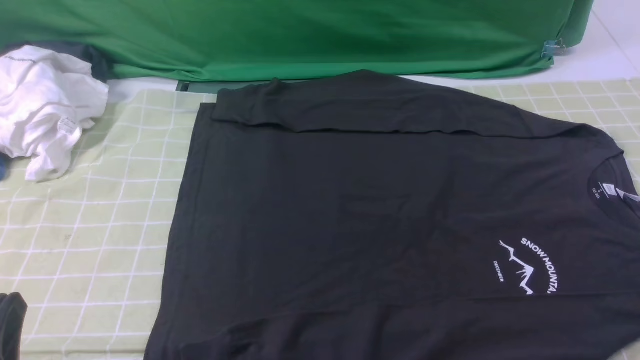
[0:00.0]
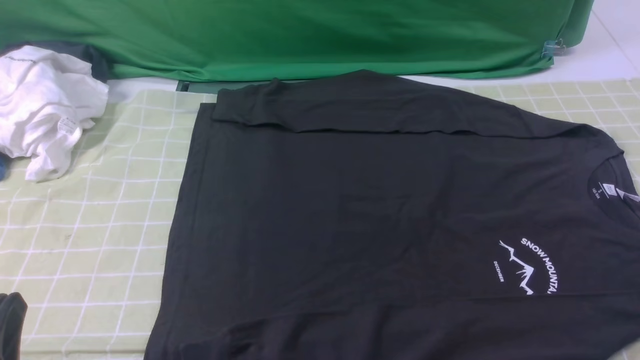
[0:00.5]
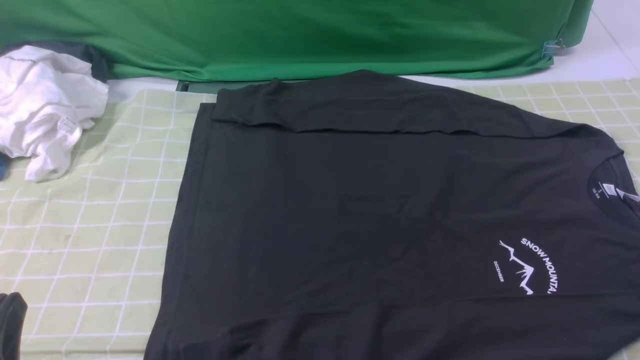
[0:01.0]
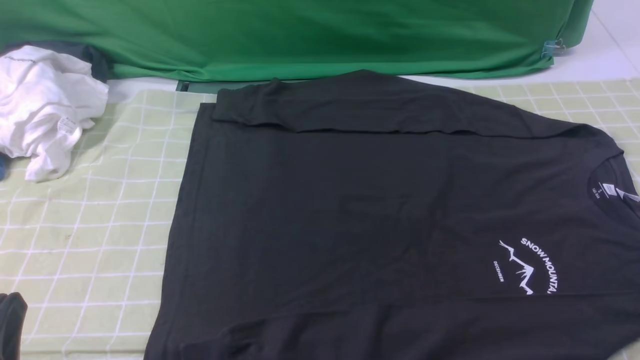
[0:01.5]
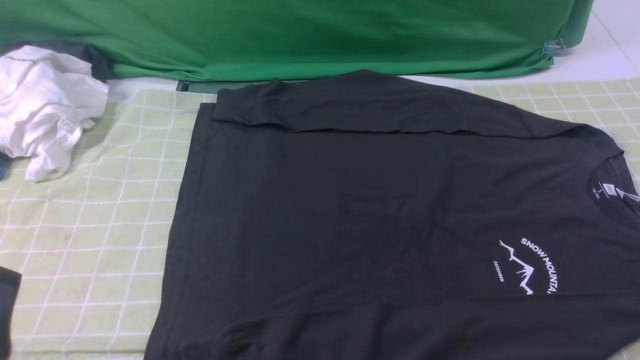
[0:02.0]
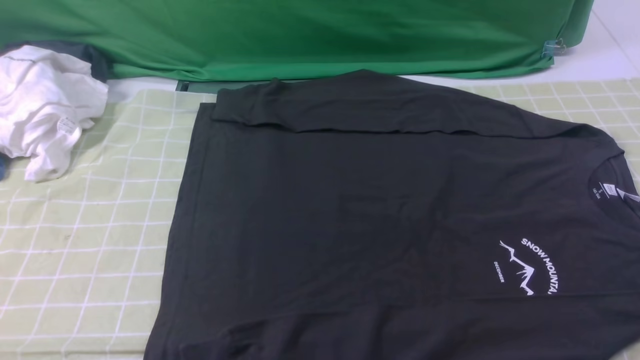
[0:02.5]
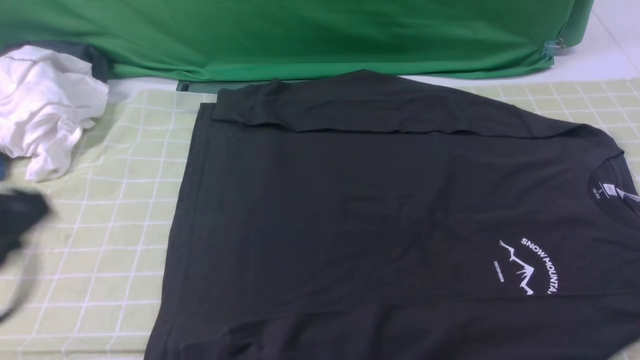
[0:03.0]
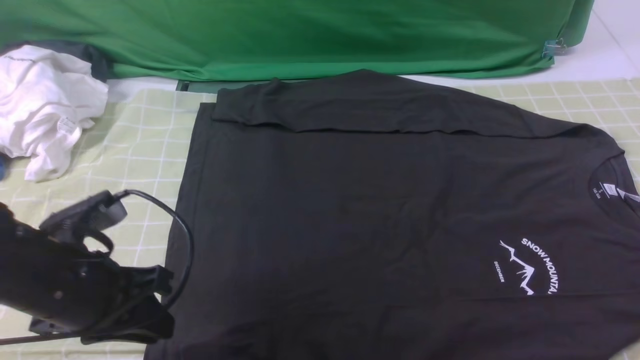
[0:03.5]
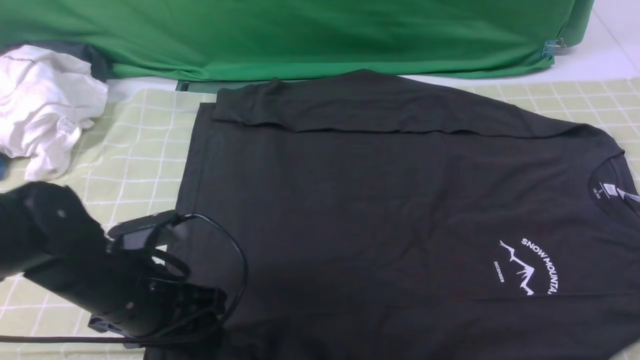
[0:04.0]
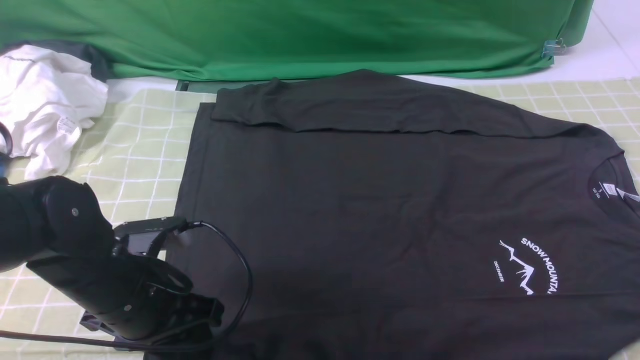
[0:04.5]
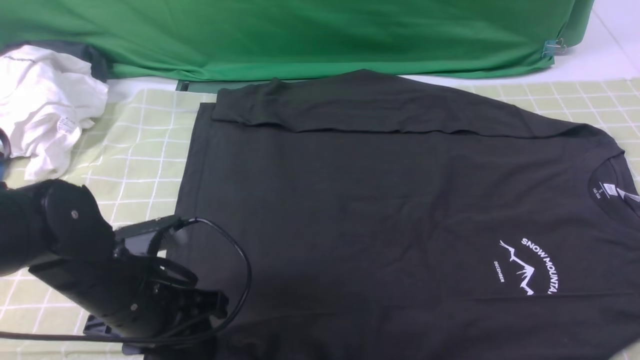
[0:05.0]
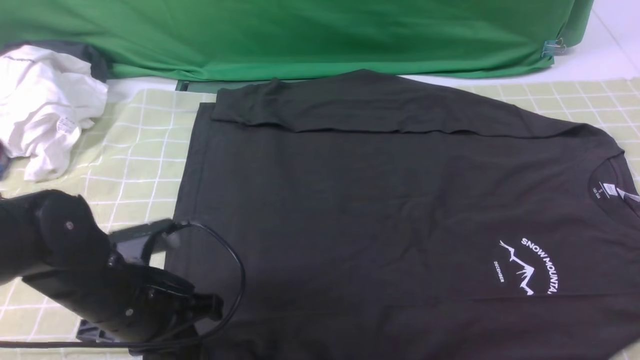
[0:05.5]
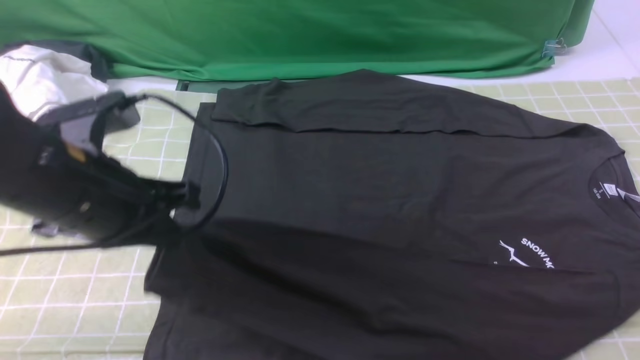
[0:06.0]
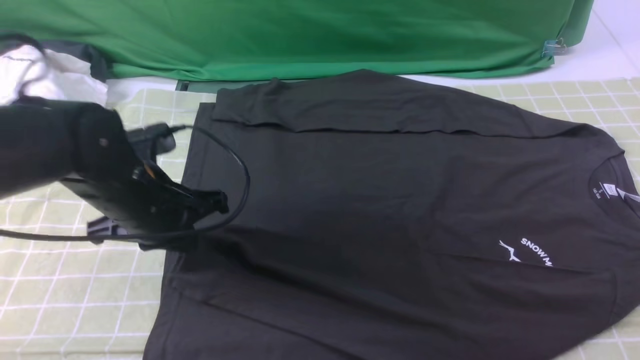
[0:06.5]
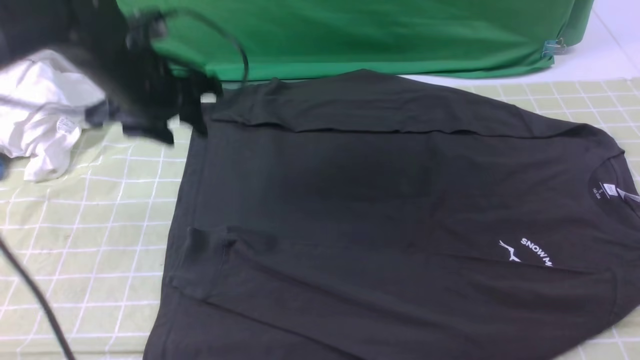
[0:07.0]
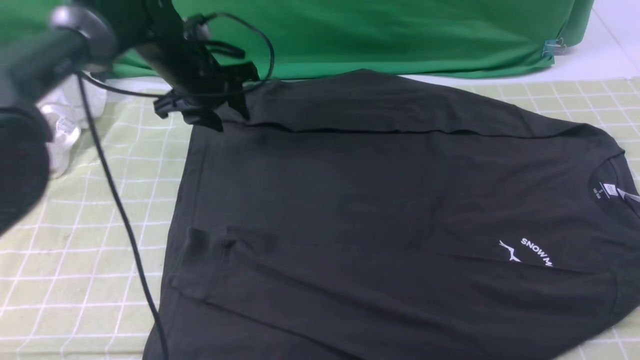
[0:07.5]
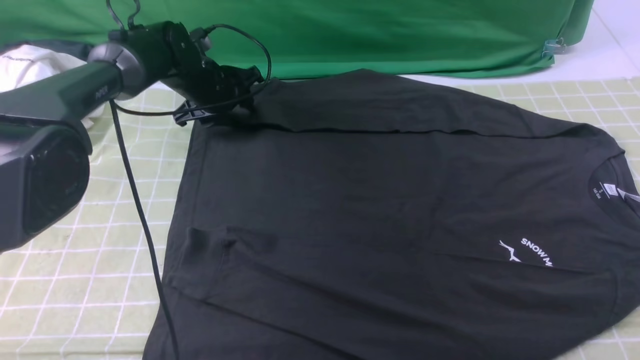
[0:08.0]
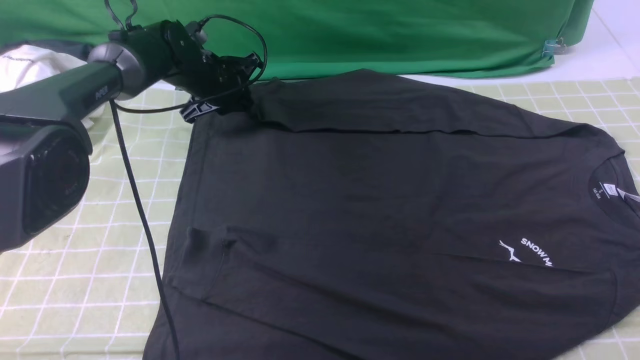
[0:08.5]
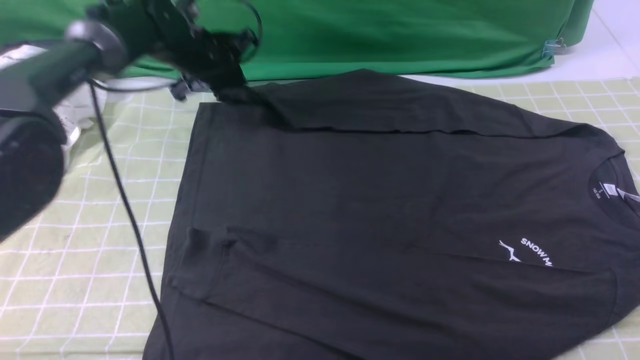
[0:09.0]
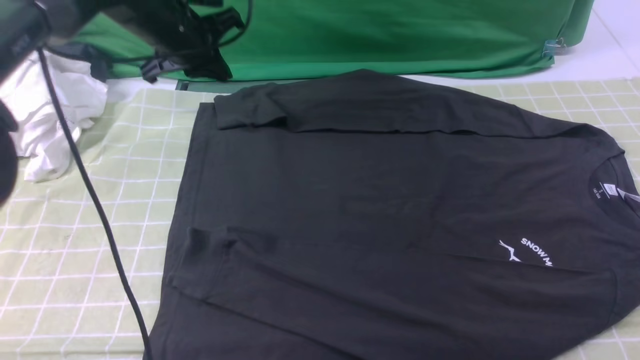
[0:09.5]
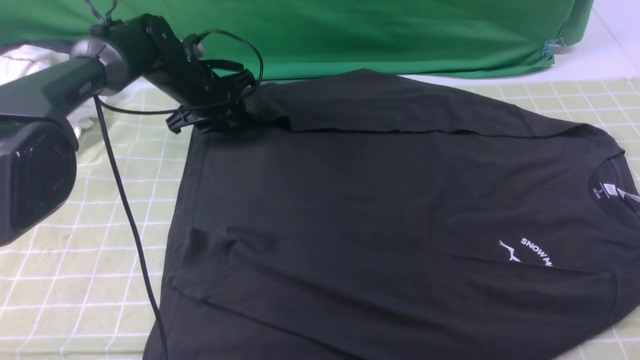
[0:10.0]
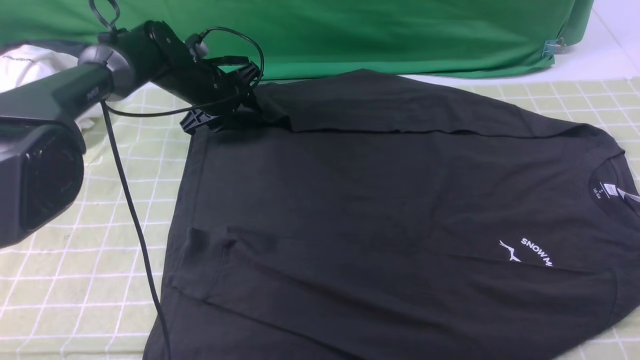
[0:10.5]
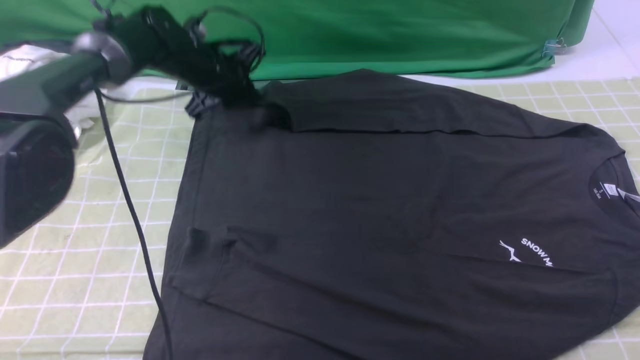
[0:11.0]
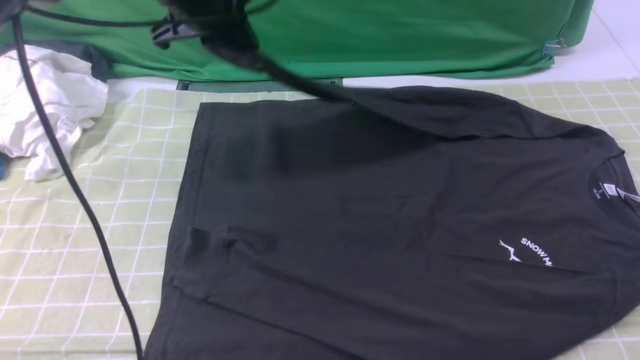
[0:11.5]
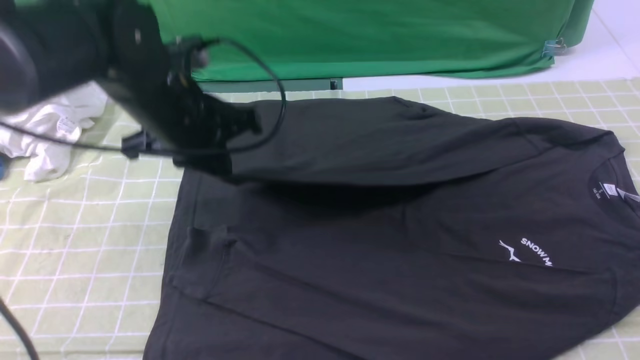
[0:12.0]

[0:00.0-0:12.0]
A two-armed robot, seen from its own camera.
Step, 0.0 to 5.0 s: use the left arm to clamp the cuff closest to it.
Step, 5.5 to 6.5 s: use the left arm to drag and place the cuff at the centered position on the left edge of the fabric.
Step, 7.0 to 10.5 s: use the left arm to clamp the cuff farthest from it.
2.0 to 4.0 s: The left gripper goes approximately 15 cm forward, and opens its fingers, while the right gripper travels upward and forward by roughly 15 cm, and closes its fingers.
4.0 to 6.0 s: The left gripper heads upward, covering about 10 cm, and closes up.
6.0 to 8.0 s: The left gripper is displaced forward by approximately 30 cm, and opens up.
8.0 to 10.0 s: The left gripper moves approximately 10 cm upward and comes back, and closes, then opens again.
10.0 to 12.0 s: The left gripper moves backward and upward, about 20 cm, and closes its fingers.

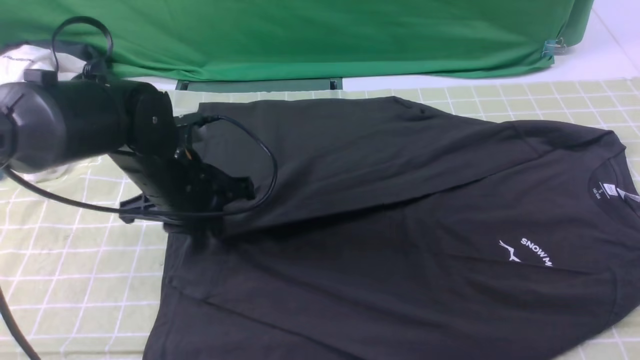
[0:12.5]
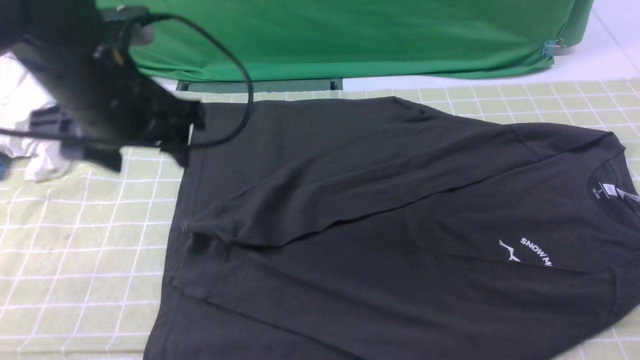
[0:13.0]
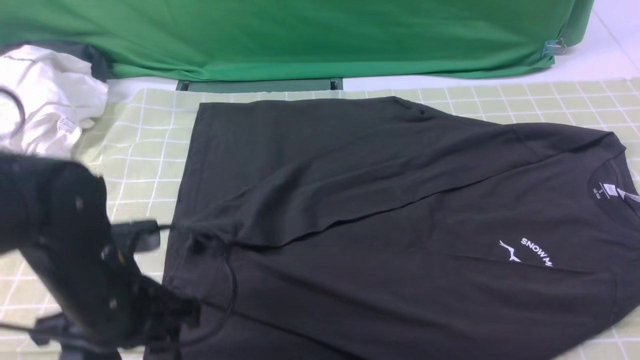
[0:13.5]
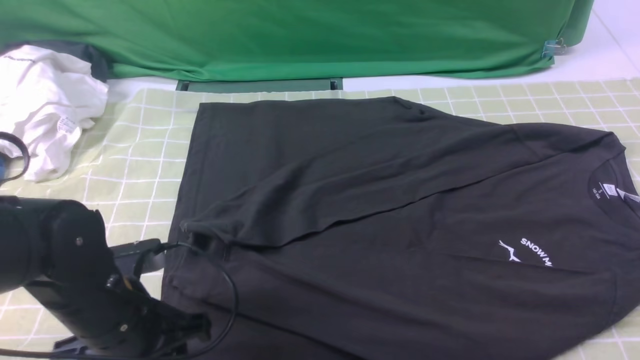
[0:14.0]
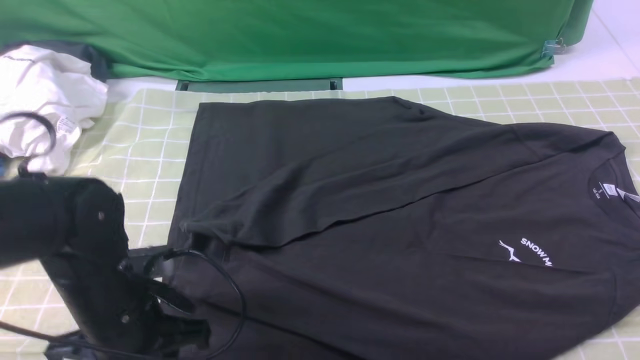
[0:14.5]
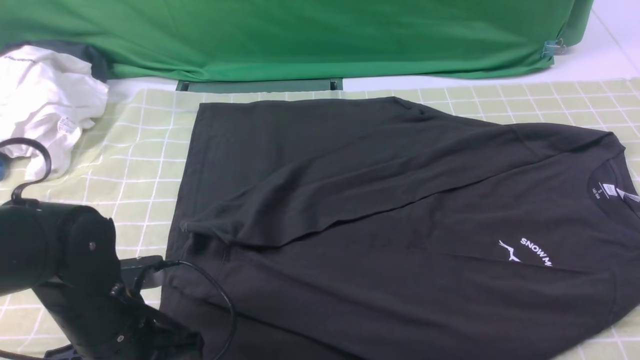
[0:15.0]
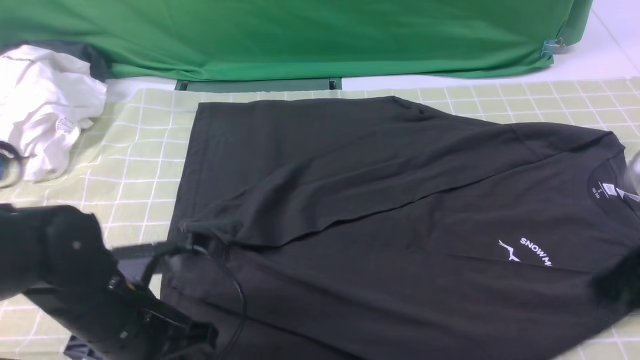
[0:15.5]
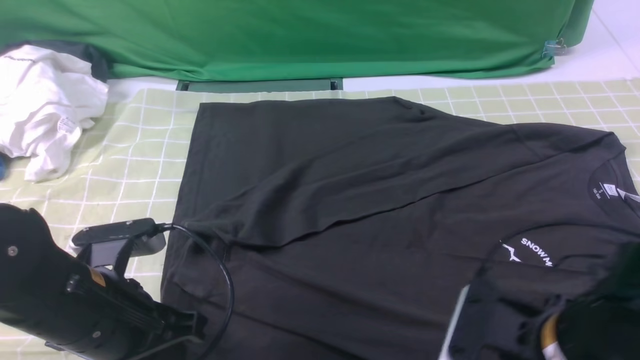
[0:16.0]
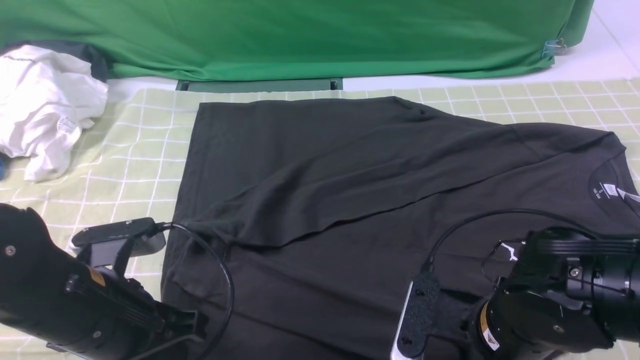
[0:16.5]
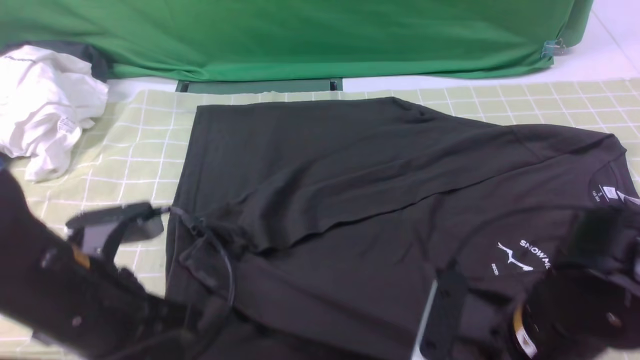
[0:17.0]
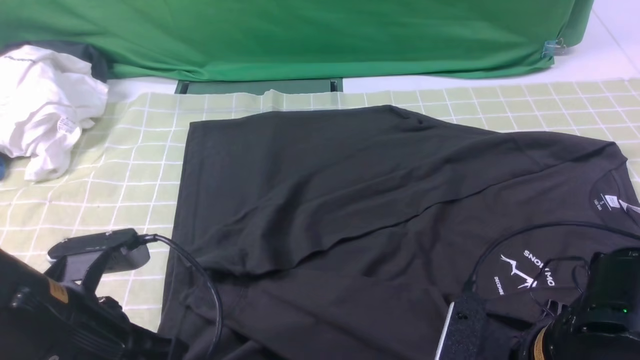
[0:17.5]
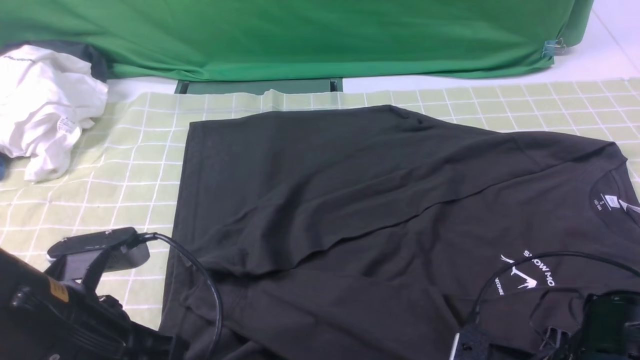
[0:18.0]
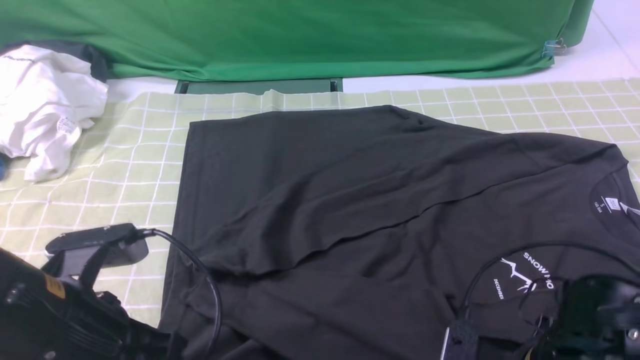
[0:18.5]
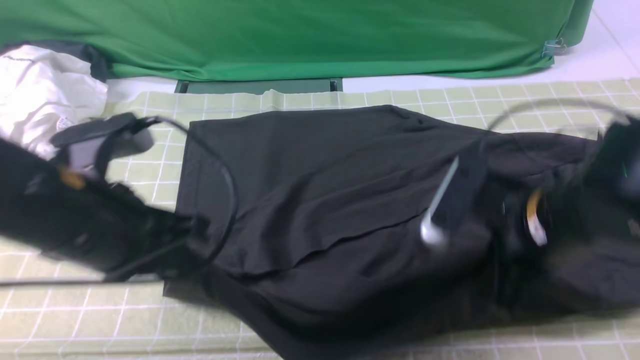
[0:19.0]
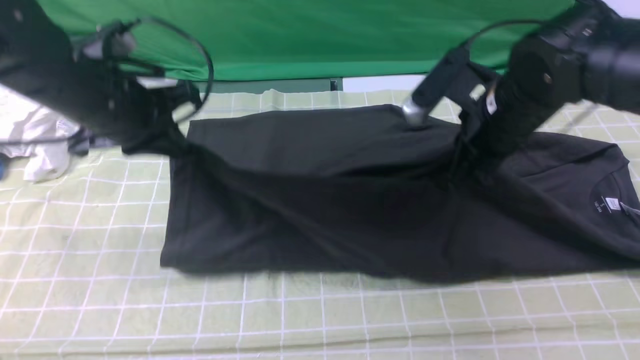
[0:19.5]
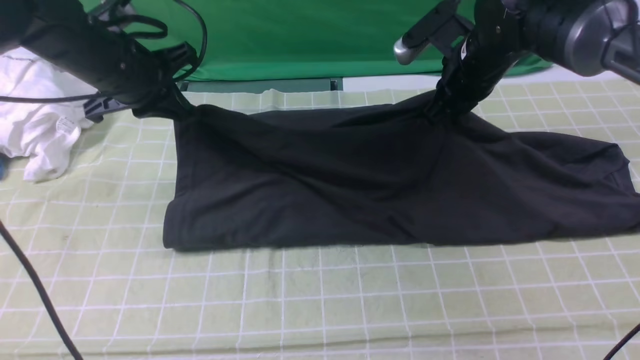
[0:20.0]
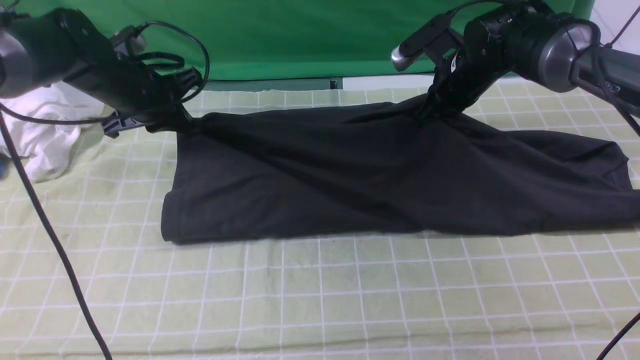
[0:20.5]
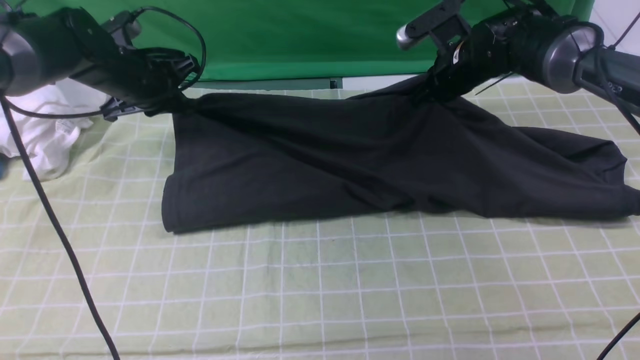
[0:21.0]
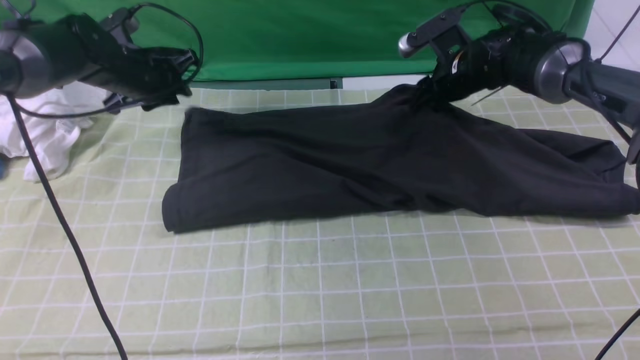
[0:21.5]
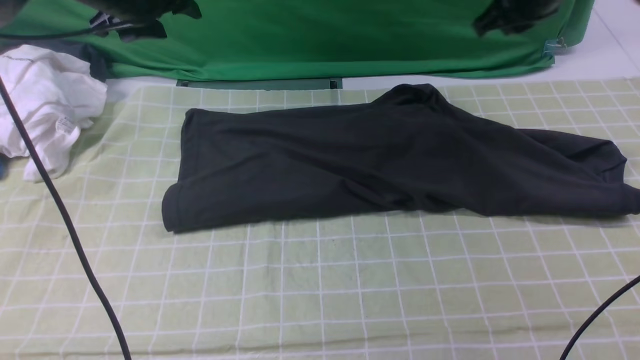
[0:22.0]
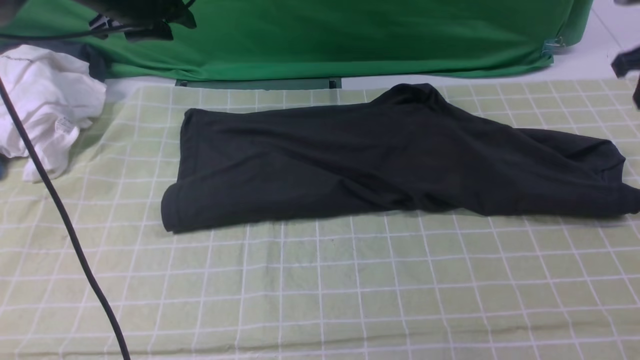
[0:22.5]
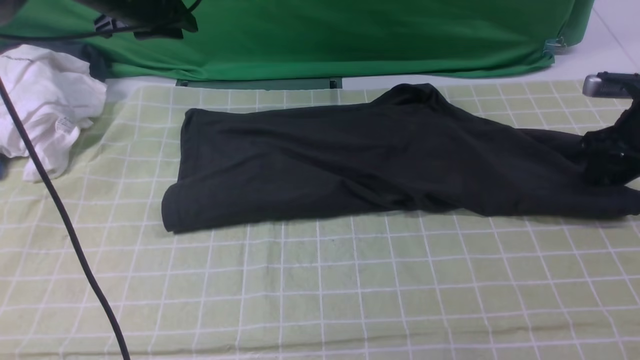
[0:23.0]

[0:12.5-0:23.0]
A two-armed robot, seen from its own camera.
Step, 13.0 to 16.5 s: use both arms simultaneously to clamp the lower edge of the clothing fabric.
Step, 17.0 to 21.5 s: use both arms to drag the lower edge of the fabric forward and fold it over the upper edge.
12.5 to 14.5 s: The left gripper goes about 15 cm backward, and opens, then closes once more.
14.5 to 16.5 s: The right gripper moves to the left and downward, approximately 25 cm, and opens, then closes once more. Meanwhile the left gripper moves about 5 cm, and closes its fingers.
16.5 to 19.0 s: The left gripper travels upward by approximately 10 cm. Meanwhile the right gripper heads upward and forward, covering about 10 cm, and opens, then closes again.
19.0 to 21.0 s: Both grippers travel together forward, approximately 25 cm.
21.0 to 23.0 s: The right gripper goes about 20 cm to the right, and opens up. The left gripper heads upward, covering roughly 10 cm, and opens, then closes again.
